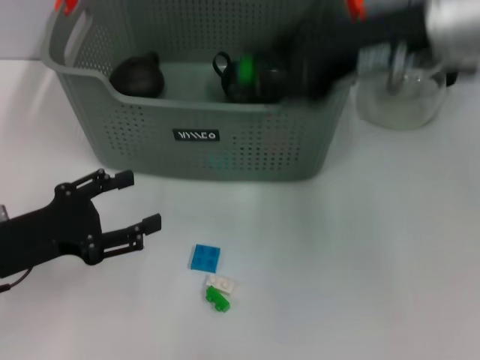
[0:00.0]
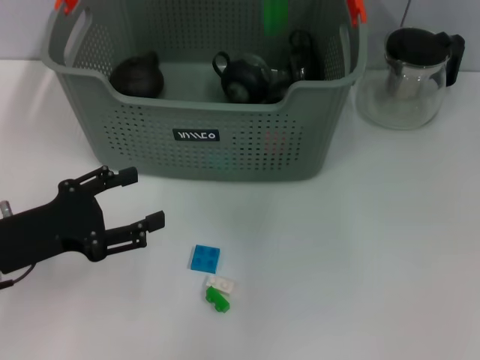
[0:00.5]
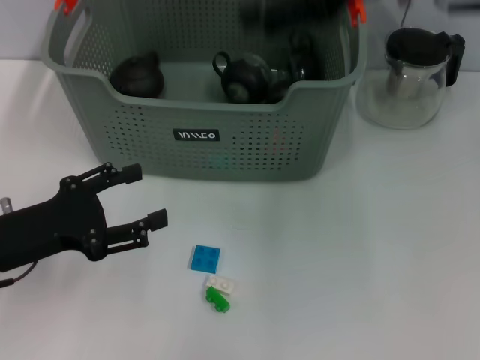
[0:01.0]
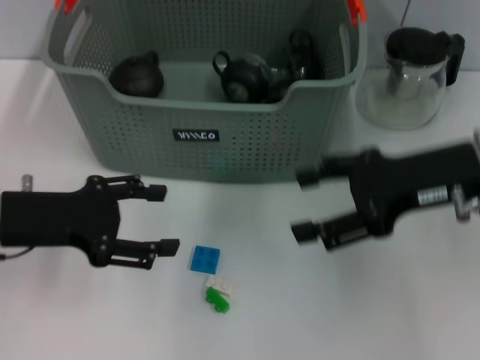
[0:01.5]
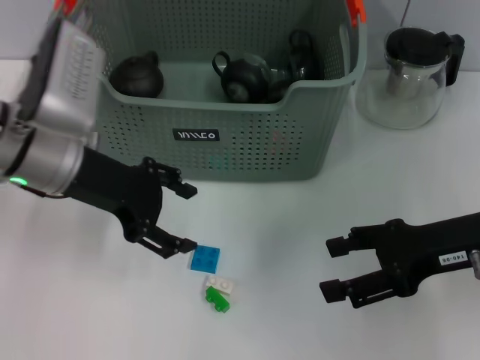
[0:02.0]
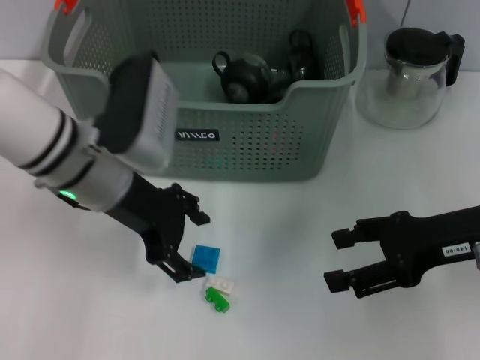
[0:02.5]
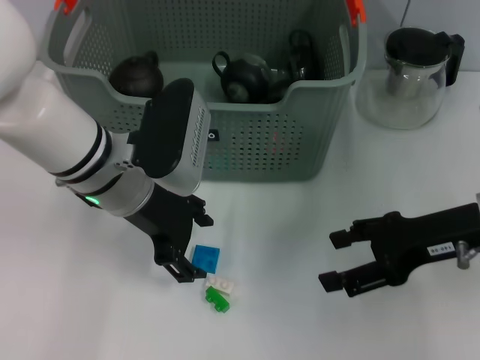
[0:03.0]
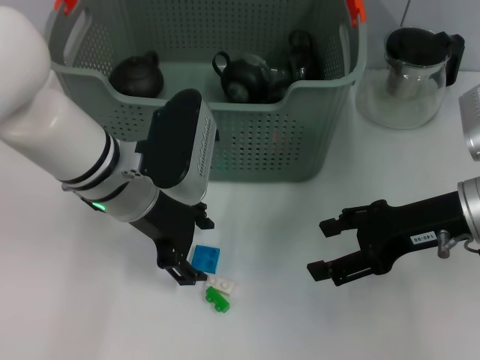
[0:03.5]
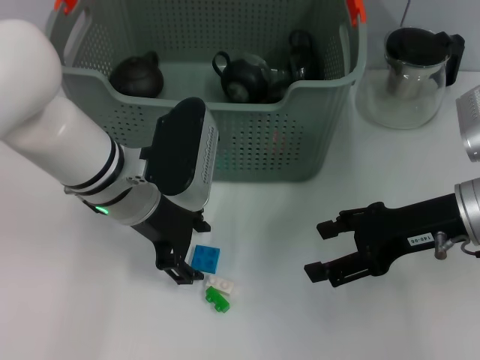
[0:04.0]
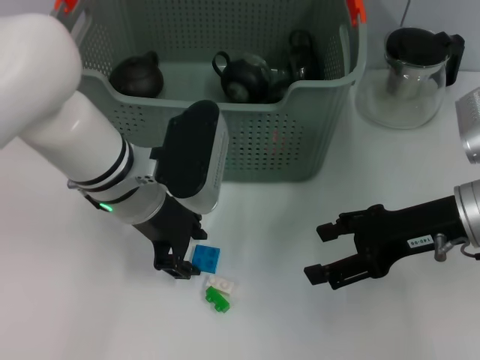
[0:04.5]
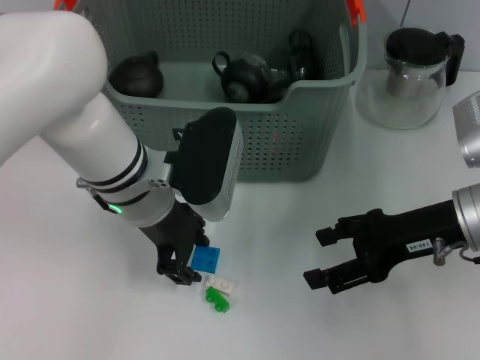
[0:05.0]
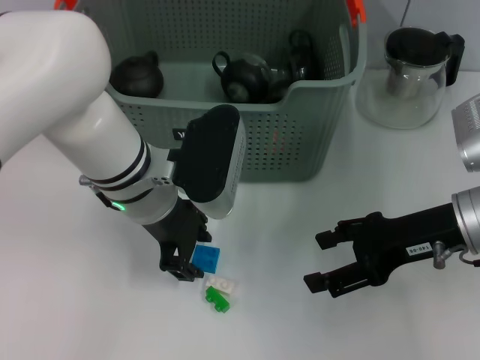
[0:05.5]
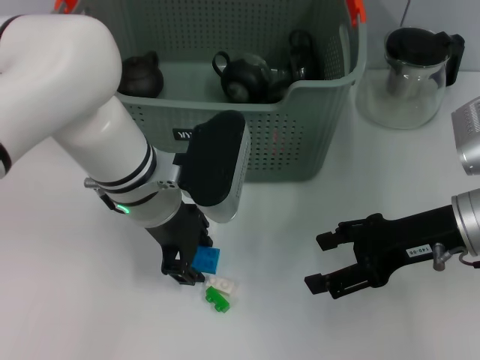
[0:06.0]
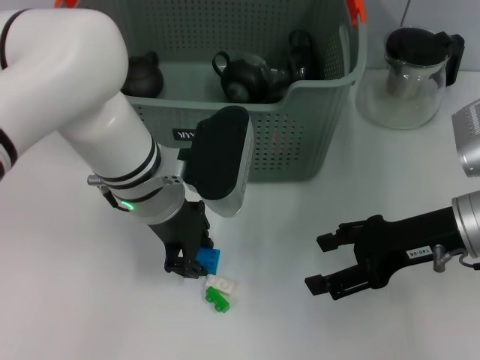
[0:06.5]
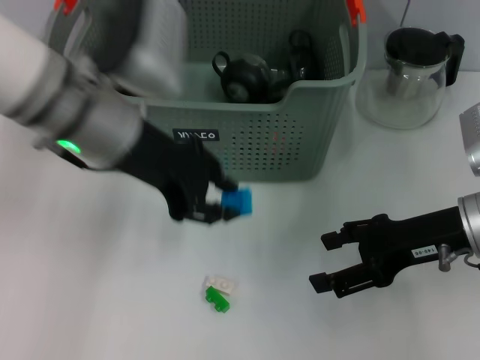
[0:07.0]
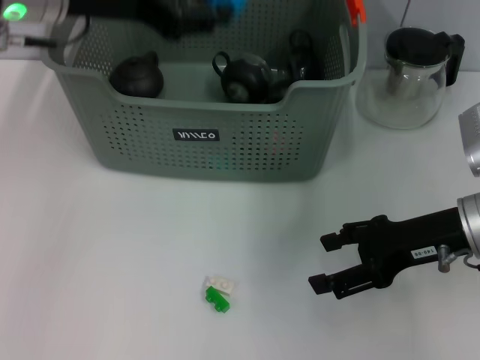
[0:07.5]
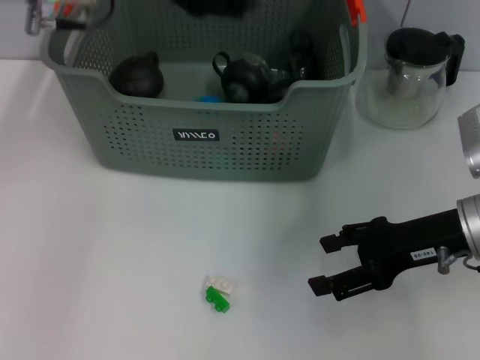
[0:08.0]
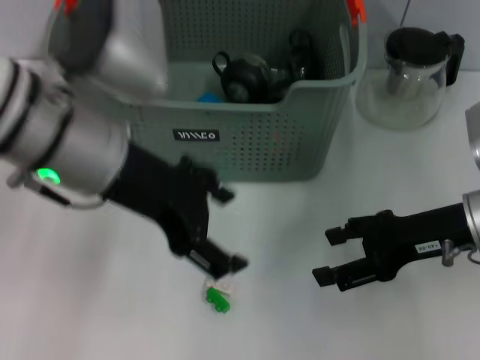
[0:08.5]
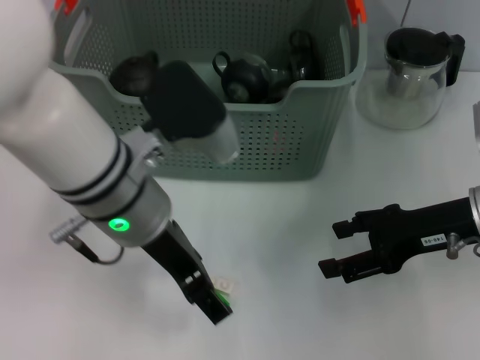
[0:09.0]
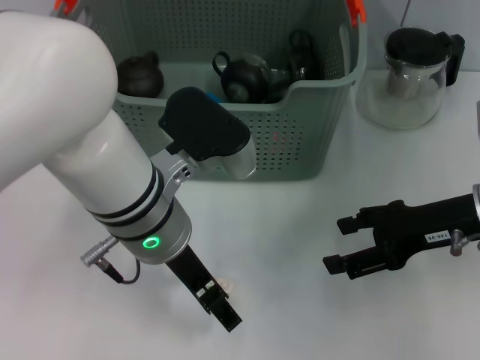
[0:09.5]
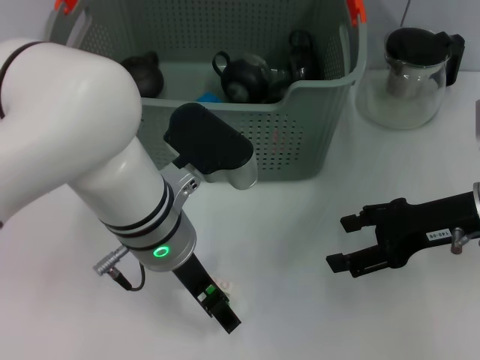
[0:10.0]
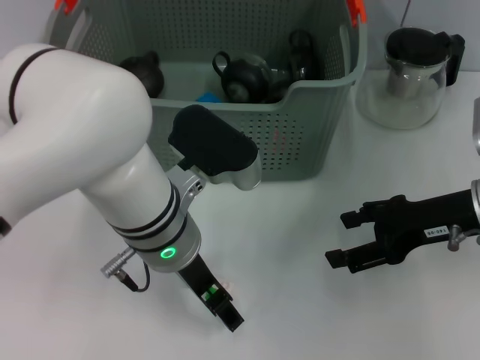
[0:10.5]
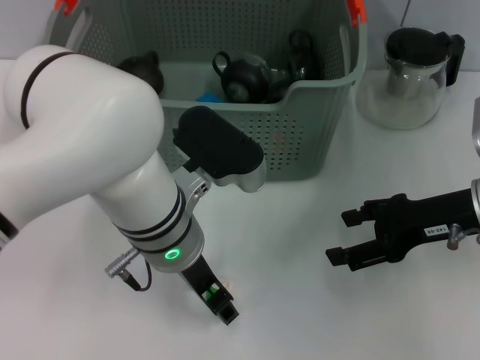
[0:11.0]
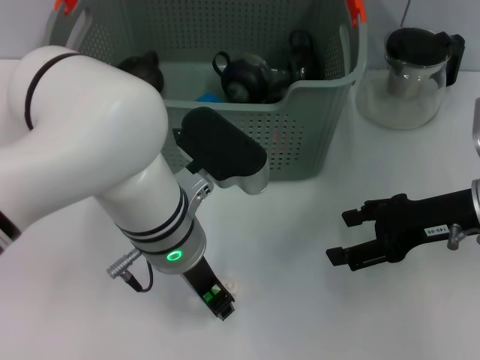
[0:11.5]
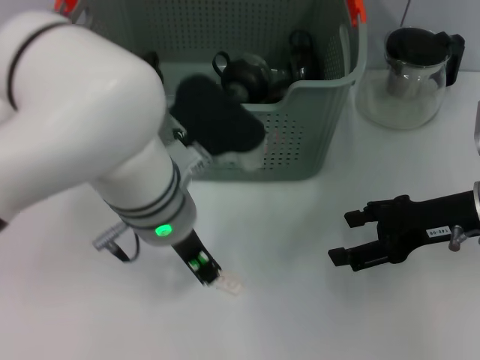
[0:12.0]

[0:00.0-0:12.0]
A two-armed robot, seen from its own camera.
Task of the whole recording: pick up the teacup on the table and place it into the storage bin, pick up the block on the table and place it into the storage bin.
Step, 0:01.0 to 0:06.5: Grasp the dark blue block with left gripper.
Step, 0:07.0 to 0:07.5: Place the dark blue block in the storage box with left gripper.
Step, 0:08.0 to 0:11.5: Grasp the green block with left gripper.
0:00.0 to 0:02.0: The right gripper moves downward and to the right, approximately 20 cm, and opens up; the left gripper moves forward, upward and to the right, roughly 15 cm.
0:02.0 to 0:04.0: The left gripper shifts about 10 cm to the right.
0:06.0 to 0:08.0: The left gripper goes about 15 cm upward.
0:08.0 to 0:10.0: The left gripper goes about 20 cm downward, to the right and backward, and opens.
0:10.0 to 0:12.0: The left gripper closes up.

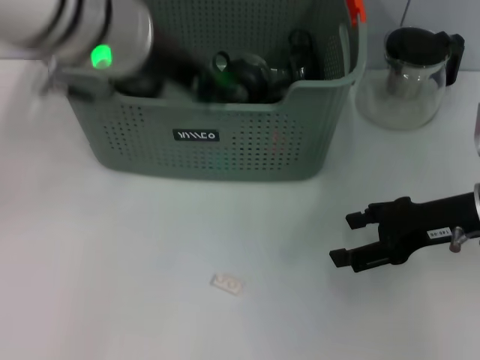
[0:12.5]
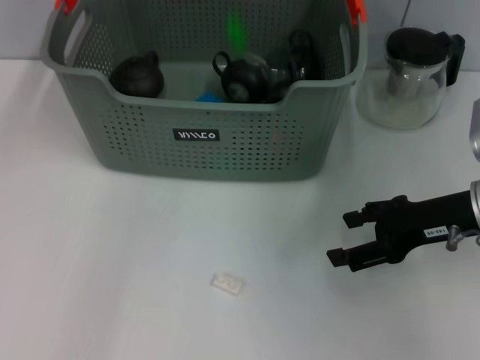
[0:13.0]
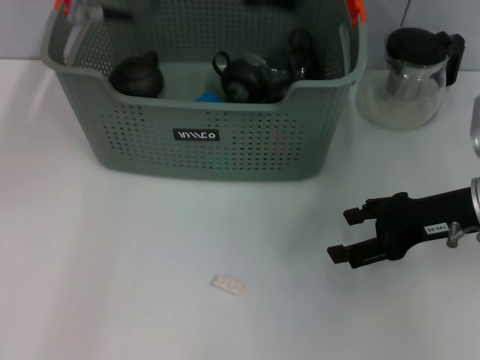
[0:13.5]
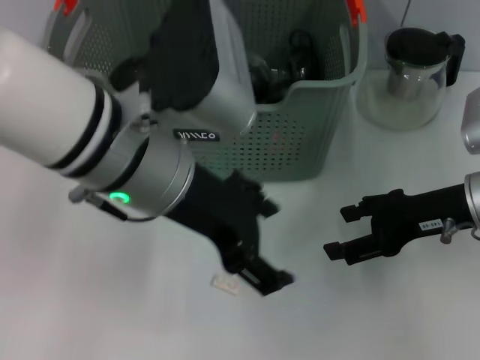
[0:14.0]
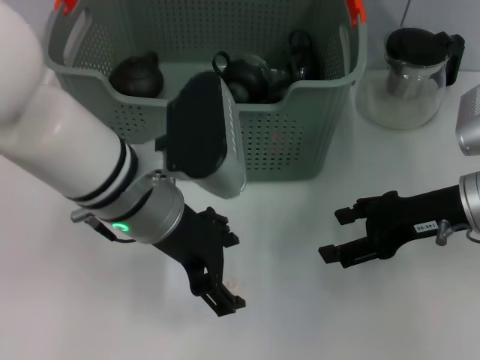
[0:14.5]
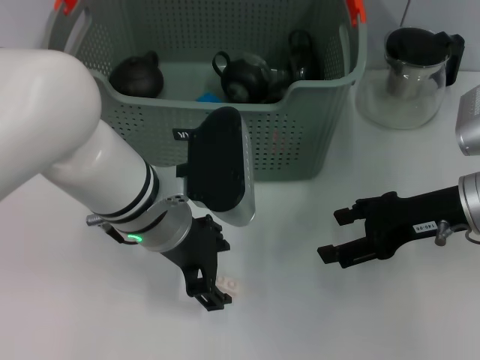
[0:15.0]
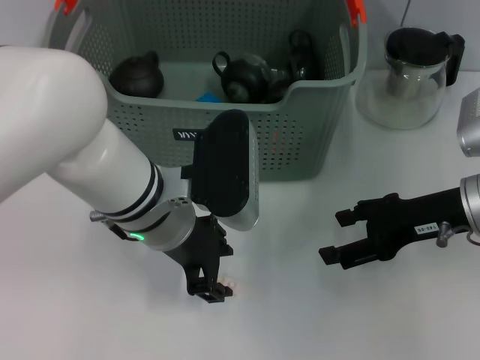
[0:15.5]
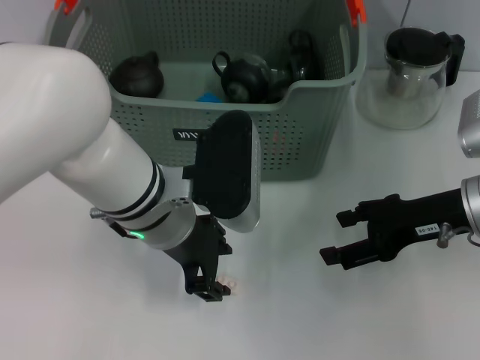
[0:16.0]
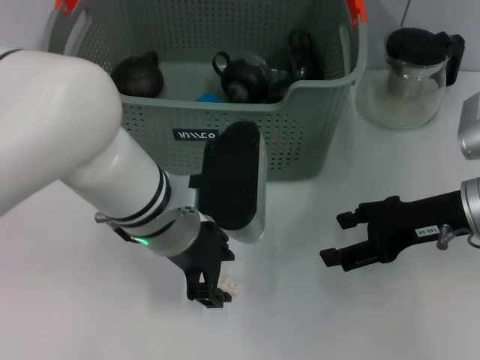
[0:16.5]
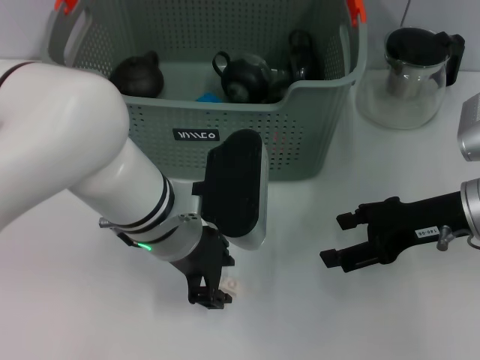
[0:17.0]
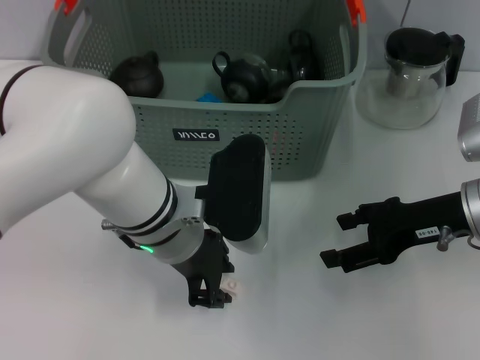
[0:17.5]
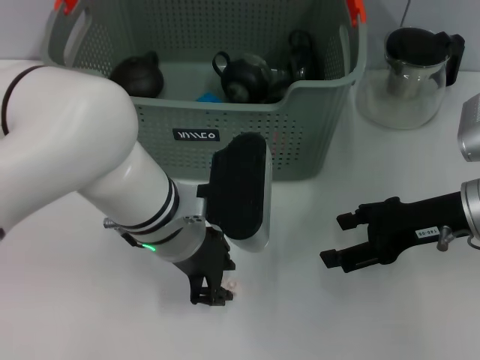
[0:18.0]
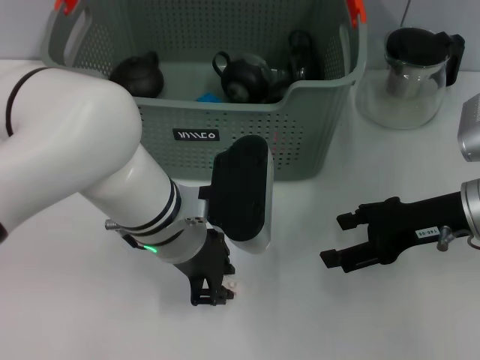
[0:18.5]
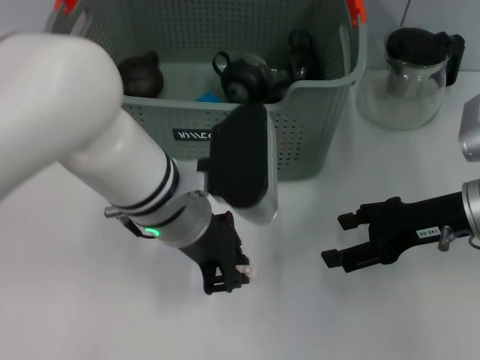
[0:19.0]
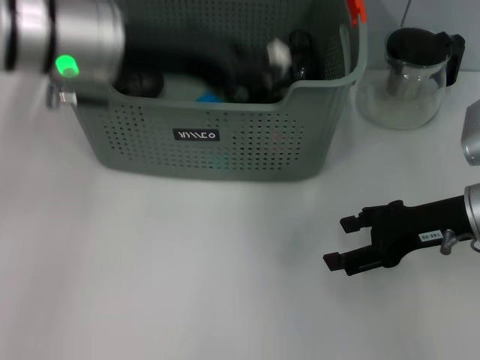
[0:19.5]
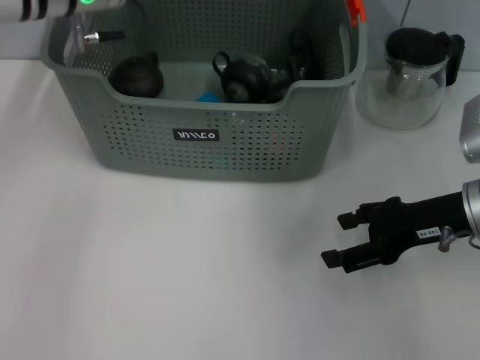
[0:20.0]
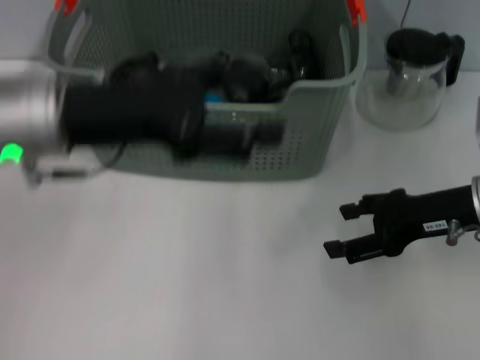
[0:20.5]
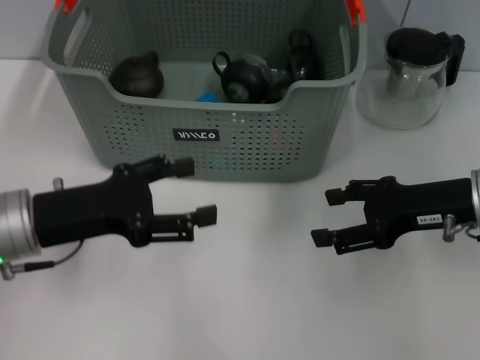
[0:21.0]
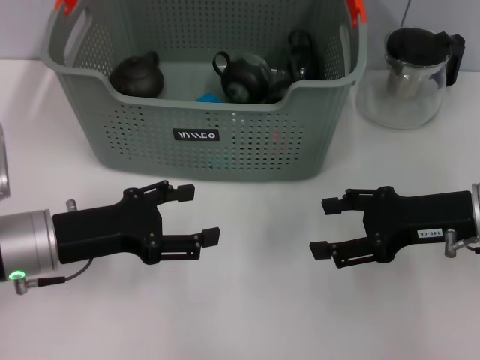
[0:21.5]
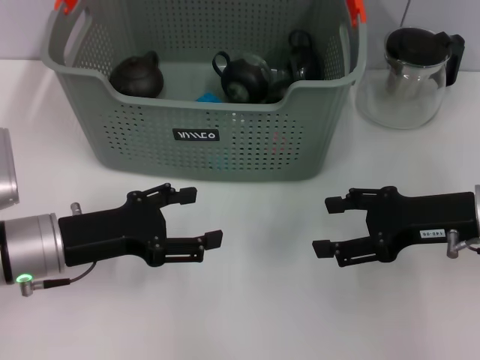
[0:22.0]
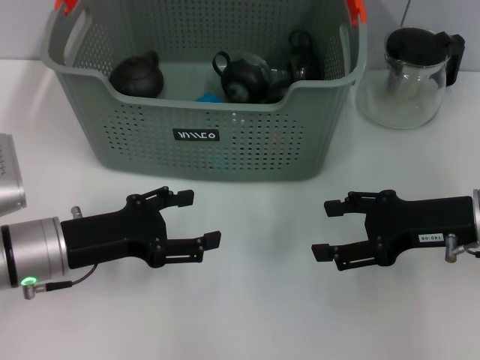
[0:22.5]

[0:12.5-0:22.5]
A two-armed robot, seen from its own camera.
Task of the whole recording: pick up the teacup on the table and place it into the storage bin, pick up the block on the table and place it into the storage bin.
Step, 0:13.5 to 0:18.5: Grasp the white block with left gripper.
Step, 0:19.0 to 0:19.5: Place the white block in the storage box with left gripper.
0:12.5 to 0:14.5: The left gripper moves downward, some 15 cm, and opens its fingers.
0:14.5 to 0:16.5: The left gripper closes up.
0:16.5 to 0:18.5: The grippers move only a little.
0:18.5 to 0:20.5: The left gripper shifts approximately 15 cm to the left and upward, and opens.
0:20.5 to 0:22.5: The left gripper moves downward, some 15 cm.
